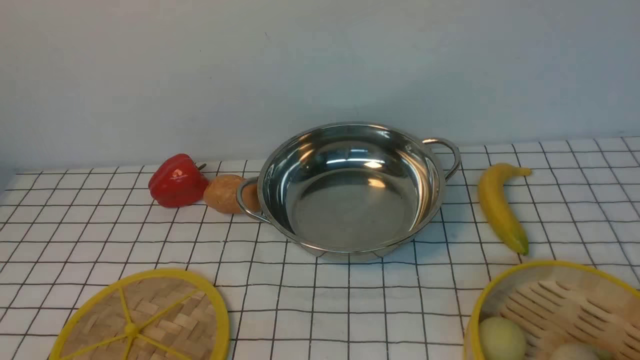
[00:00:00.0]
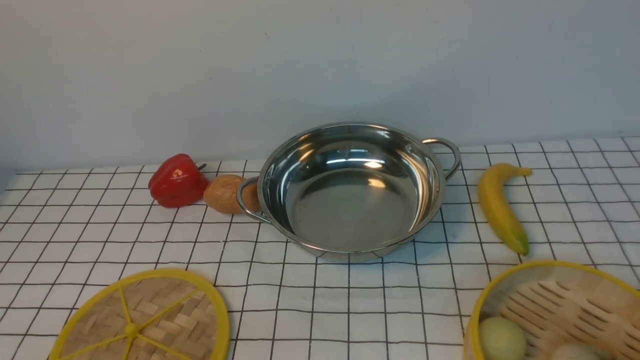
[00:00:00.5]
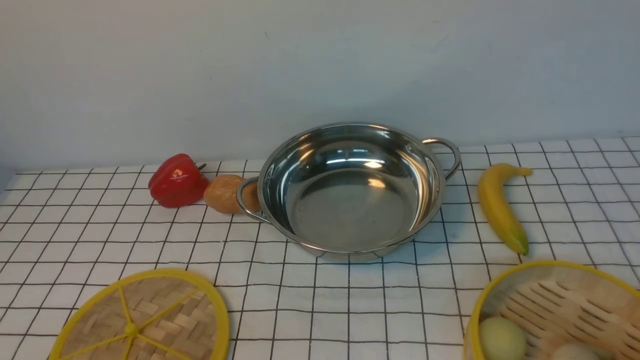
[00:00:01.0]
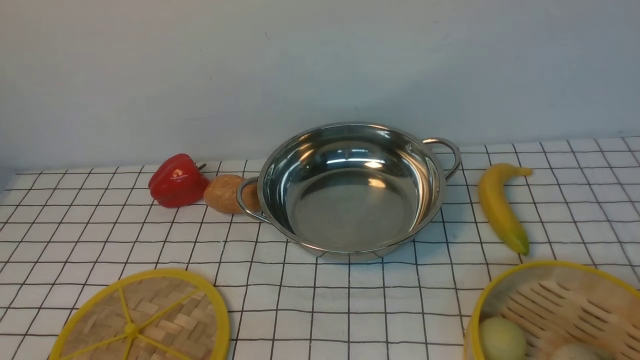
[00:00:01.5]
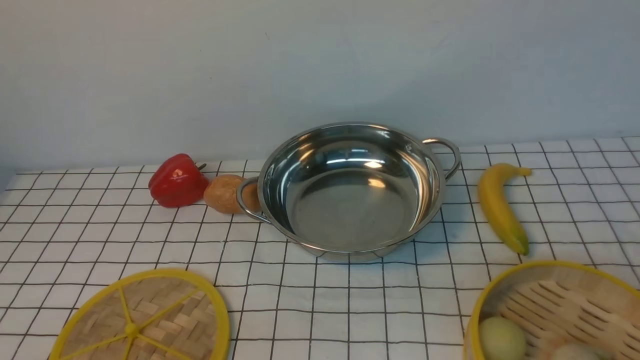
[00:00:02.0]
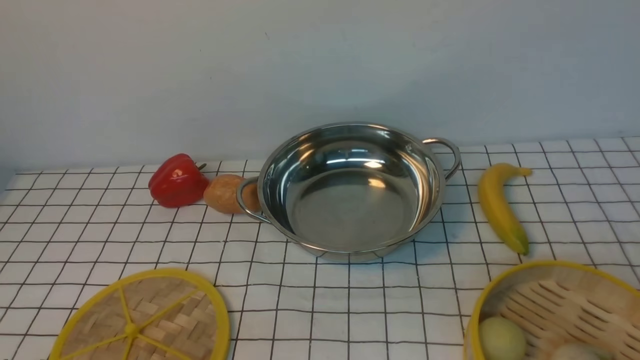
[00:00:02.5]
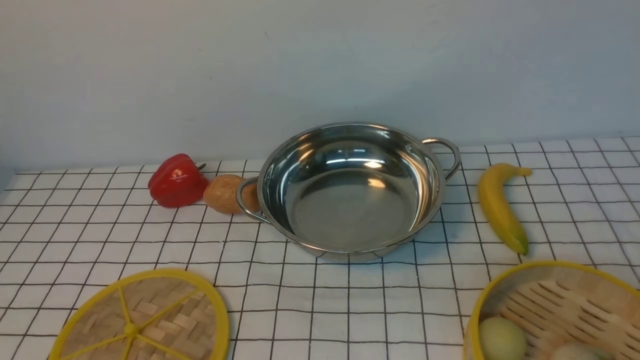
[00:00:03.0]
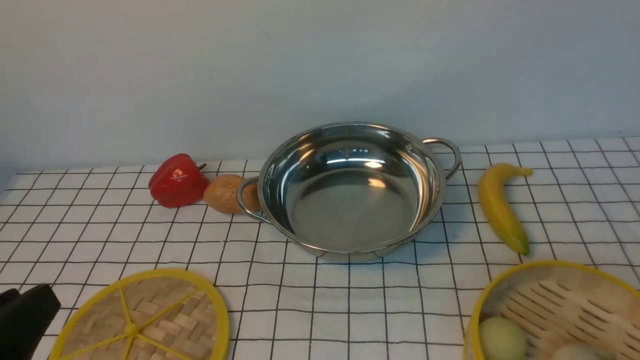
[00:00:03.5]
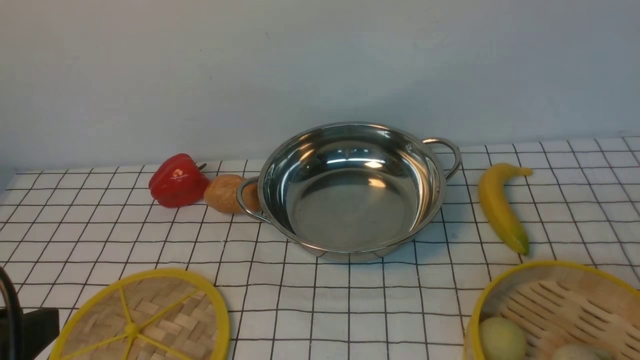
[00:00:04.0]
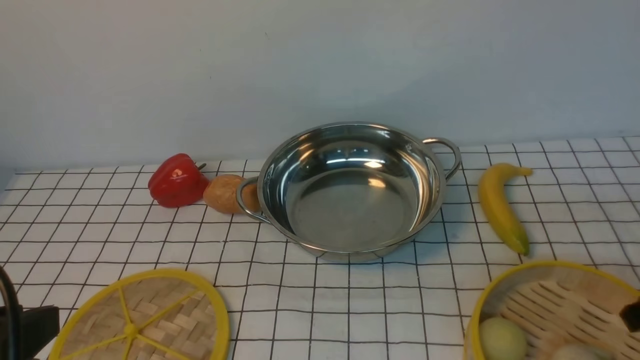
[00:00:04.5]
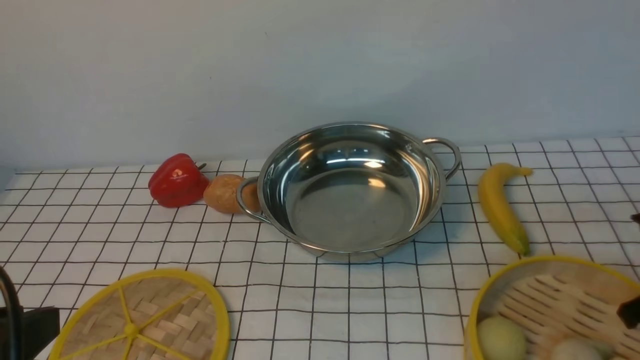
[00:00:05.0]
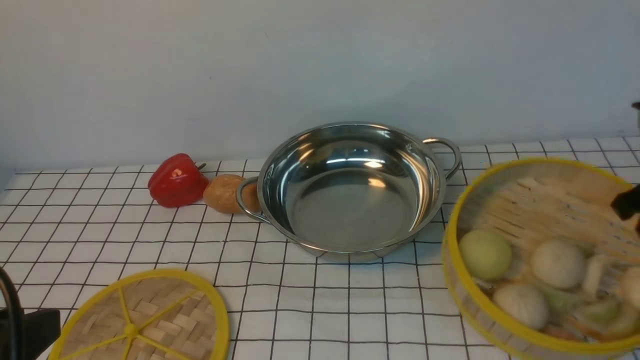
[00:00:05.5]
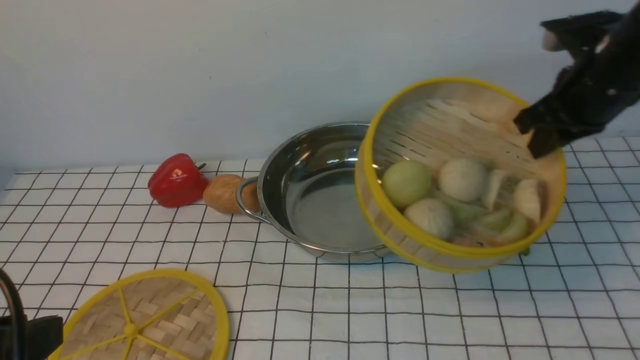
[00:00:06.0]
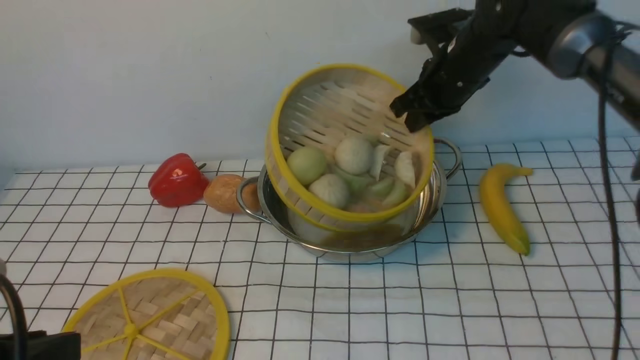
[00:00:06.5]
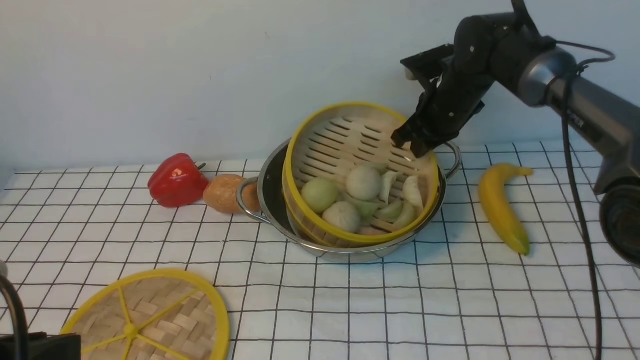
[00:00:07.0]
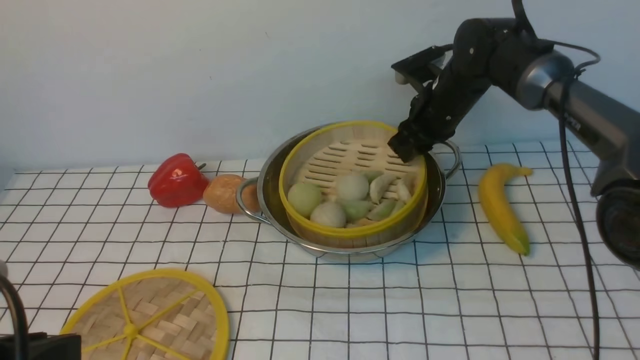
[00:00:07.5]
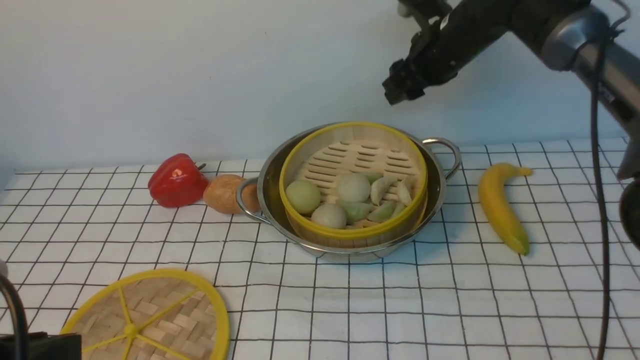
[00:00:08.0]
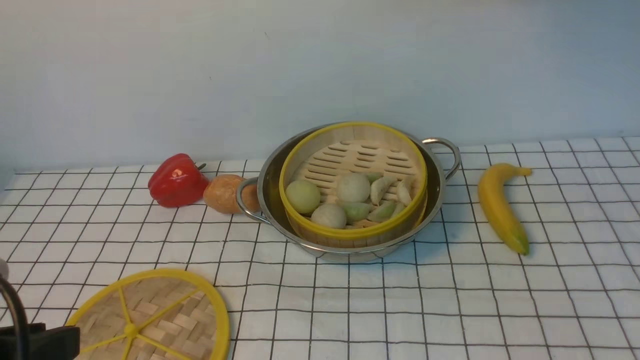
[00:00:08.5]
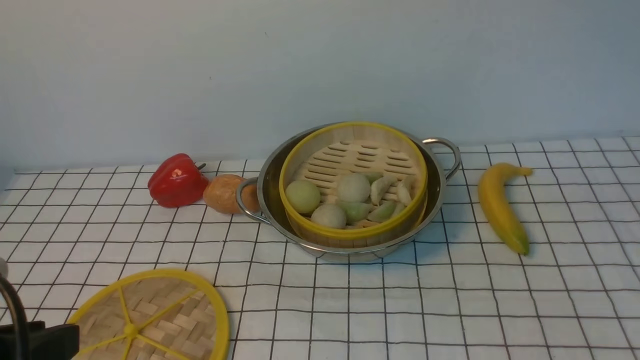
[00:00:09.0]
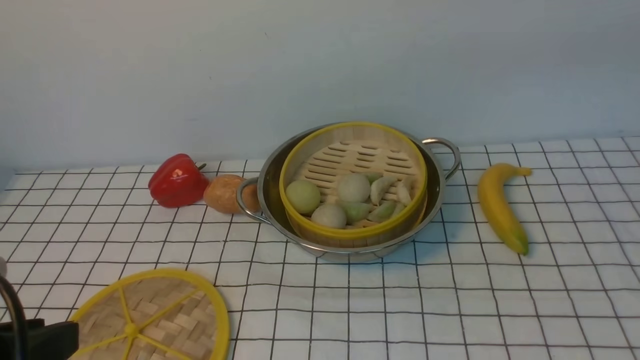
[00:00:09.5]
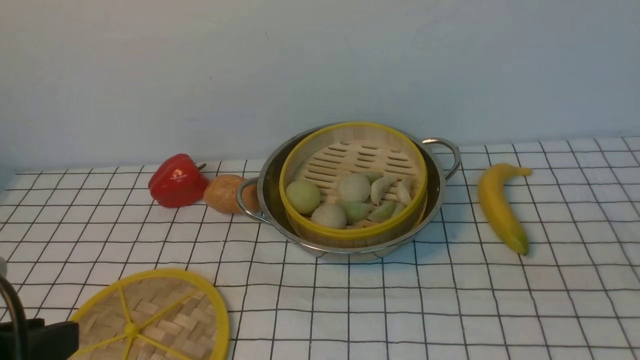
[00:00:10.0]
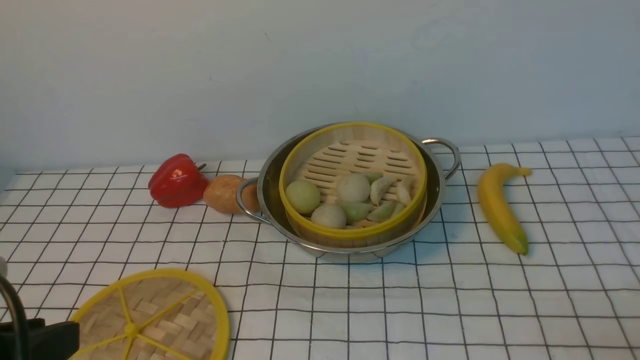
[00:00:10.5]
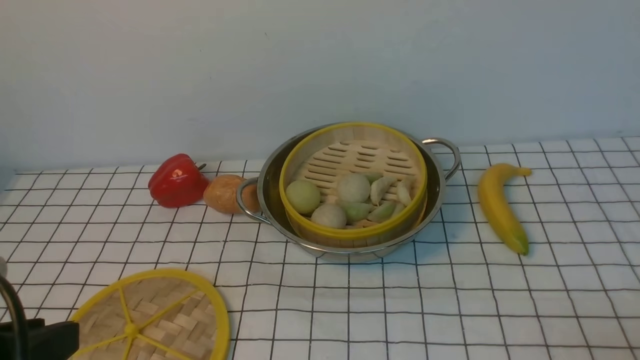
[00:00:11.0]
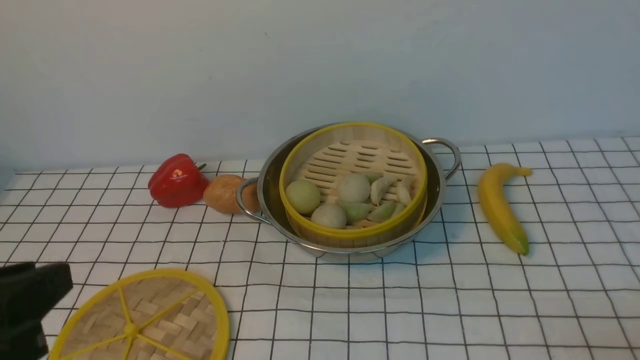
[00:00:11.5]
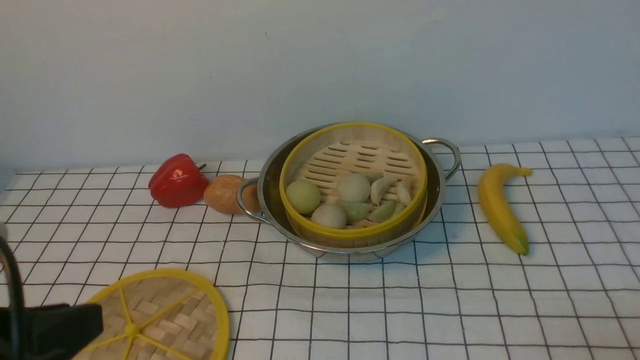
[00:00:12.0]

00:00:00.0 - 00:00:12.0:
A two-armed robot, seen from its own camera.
Task of the whole recording: place the steamer in the pot on the white tablecloth, and put the lid on the steamer.
Step, 00:00:00.0 - 00:00:05.0: use the right arm to lift the steamer closest to it.
Step, 00:00:05.5 - 00:00:07.5: use the right arm to put the steamer into the iron steamer pot in the middle.
00:00:02.0 - 00:00:04.0: The left gripper goes roughly 15 cm upward.
00:00:04.0 - 00:00:06.0: The right gripper heads forward, covering about 20 cm, and closes.
00:00:06.0 - 00:00:08.0: The right gripper moves to the left and forward, about 15 cm, and opens.
00:00:08.0 - 00:00:10.0: The right gripper heads backward and to the right, covering approximately 40 cm, and closes.

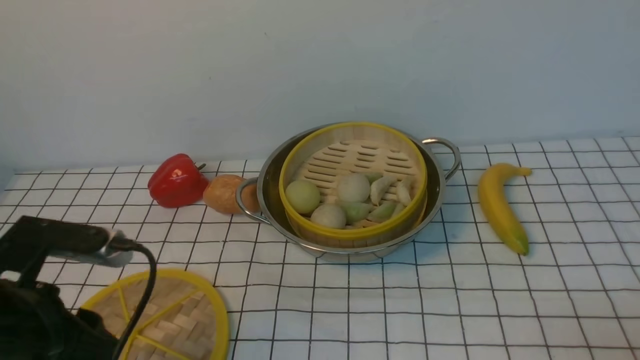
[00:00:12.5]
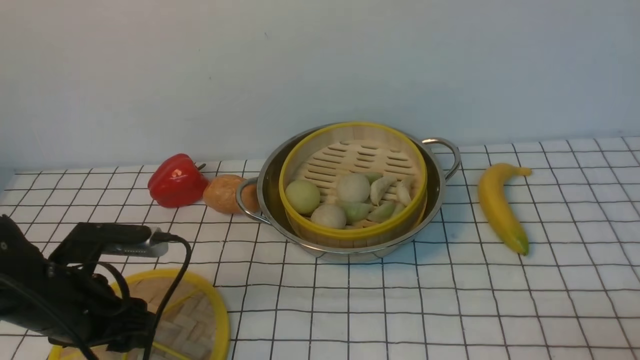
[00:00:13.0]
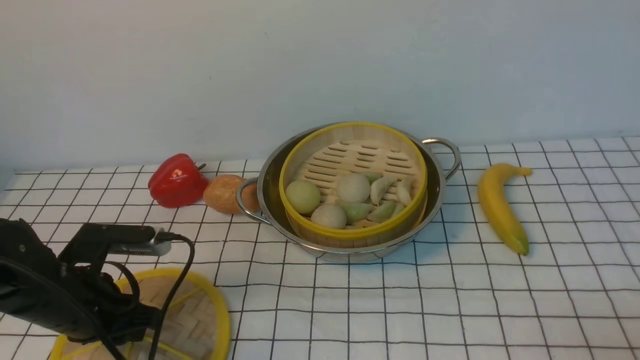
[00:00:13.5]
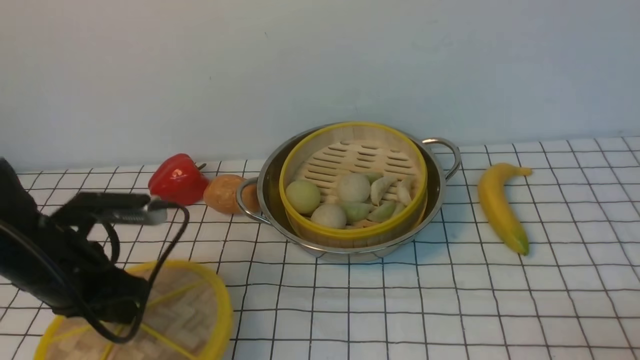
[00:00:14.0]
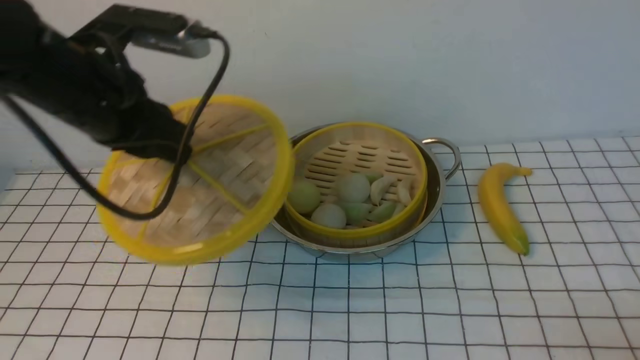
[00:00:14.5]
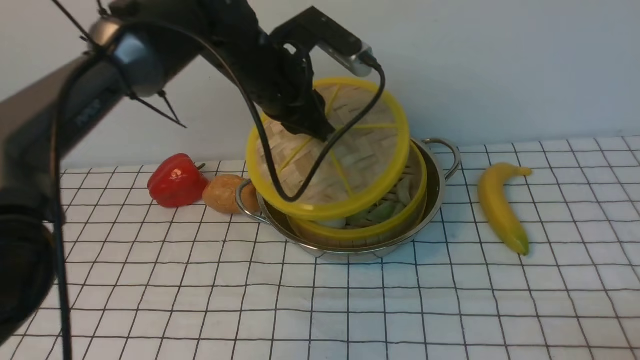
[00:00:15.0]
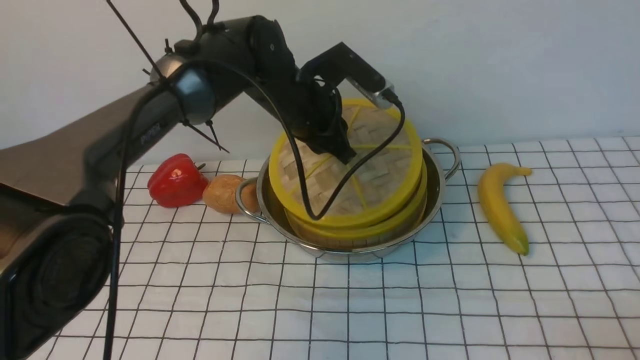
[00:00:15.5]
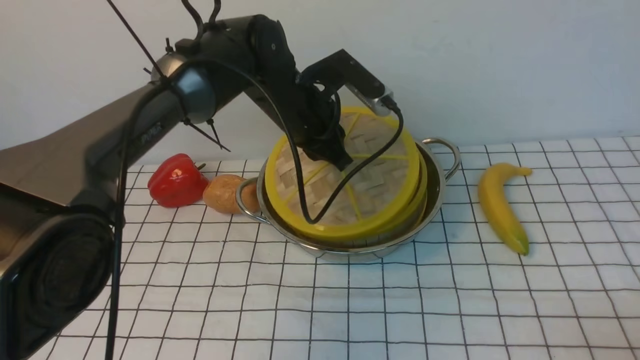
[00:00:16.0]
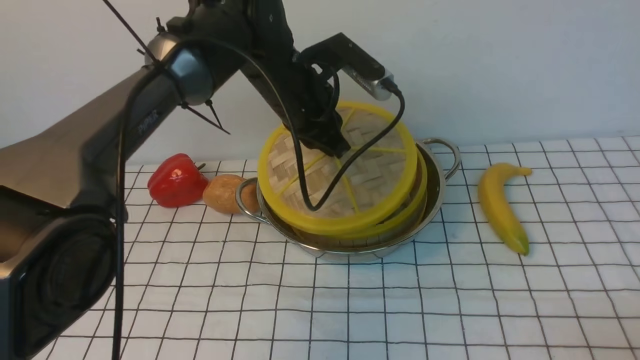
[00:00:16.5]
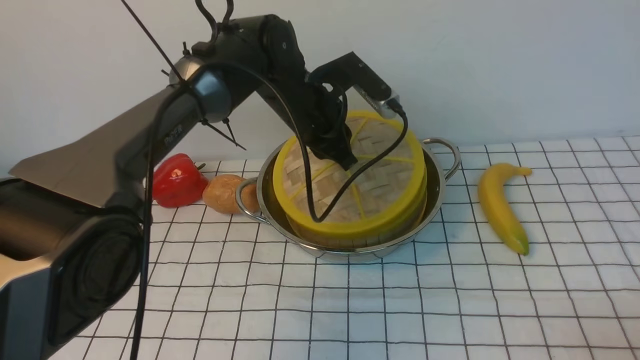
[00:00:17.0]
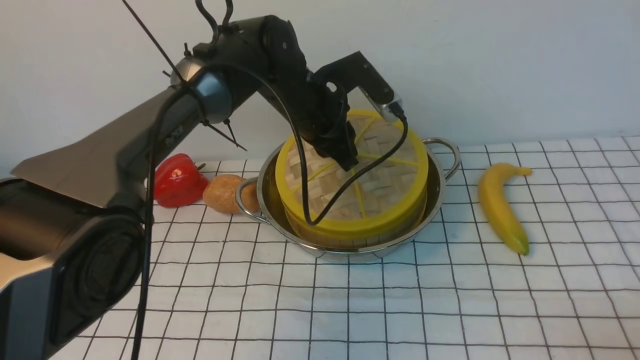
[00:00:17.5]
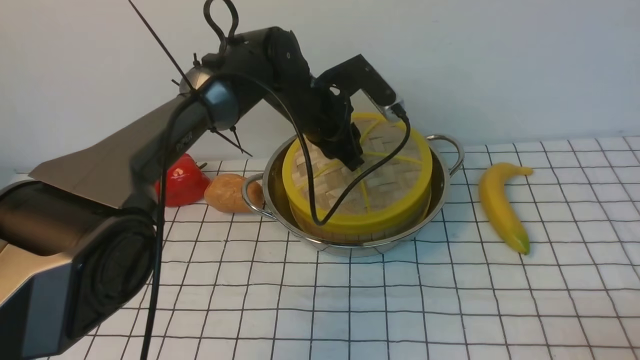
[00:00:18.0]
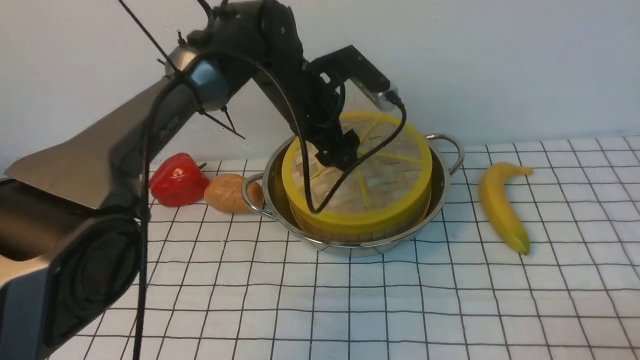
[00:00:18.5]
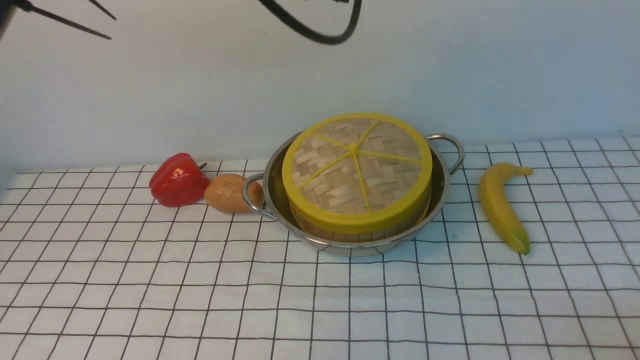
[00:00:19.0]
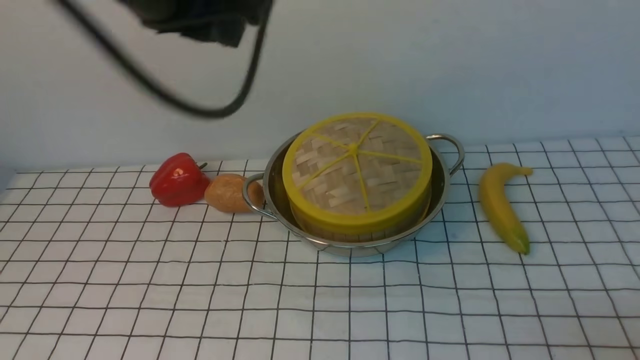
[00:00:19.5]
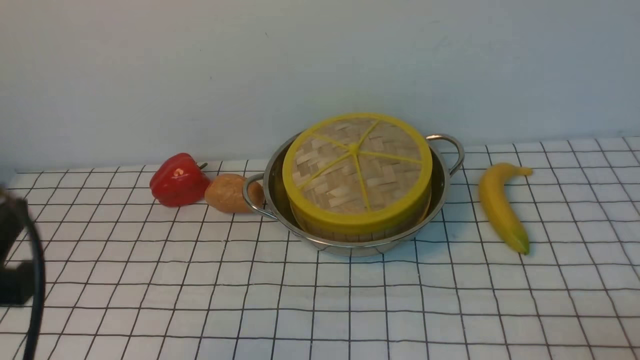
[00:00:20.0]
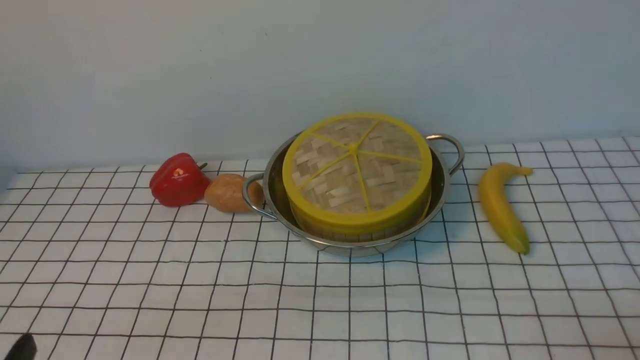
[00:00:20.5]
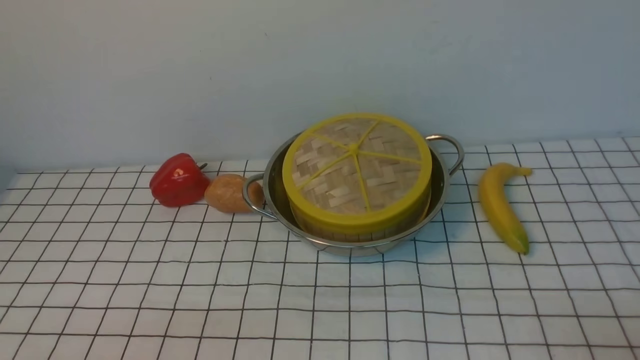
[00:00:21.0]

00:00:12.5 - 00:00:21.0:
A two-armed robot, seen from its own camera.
Task of the whole recording: place the steamer in the pot on the white tablecloth, and put the lid on the steamer.
Step, 00:00:14.5 - 00:00:18.5: use the left arm to place the steamer lid on the steamer.
00:00:12.5 - 00:00:14.5: The left gripper is displaced forward, upward and to the right by some 20 cm, and closes its fingers.
00:00:14.5 - 00:00:16.5: The left gripper travels to the right, forward and downward by about 20 cm.
00:00:16.5 - 00:00:19.0: The left gripper is displaced upward by roughly 20 cm, and opens its fingers.
00:00:19.0 - 00:00:21.0: The left gripper heads backward, downward and to the left, covering roughly 50 cm.
